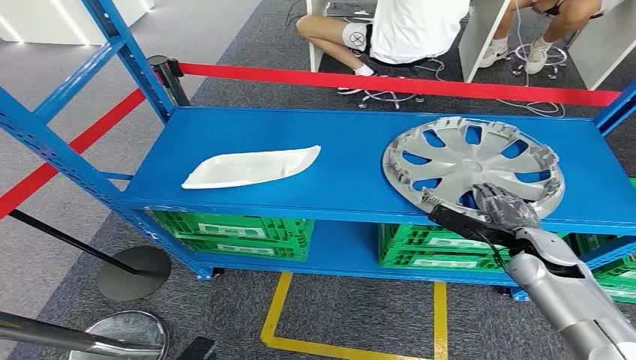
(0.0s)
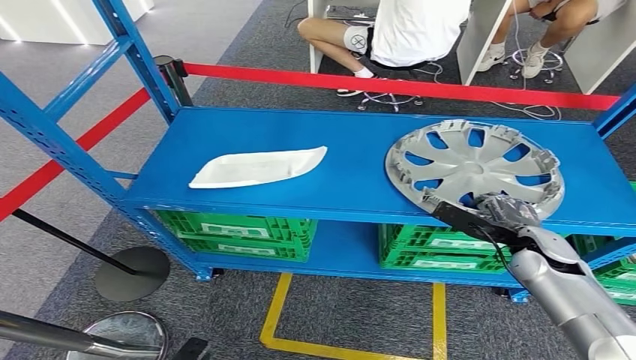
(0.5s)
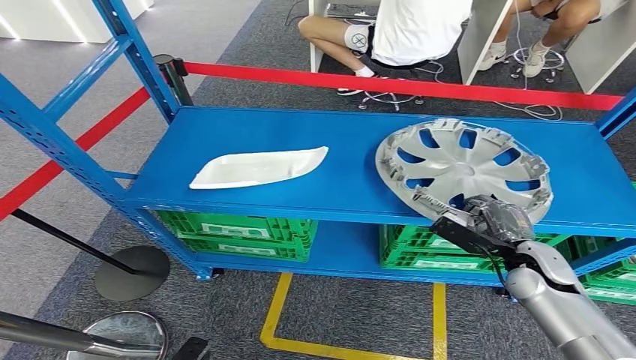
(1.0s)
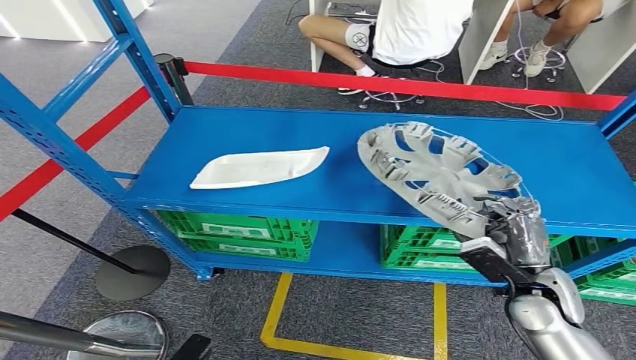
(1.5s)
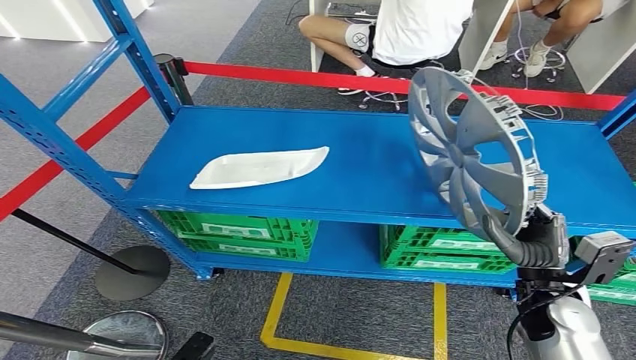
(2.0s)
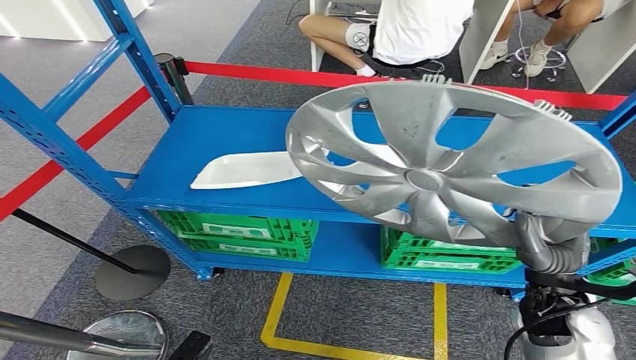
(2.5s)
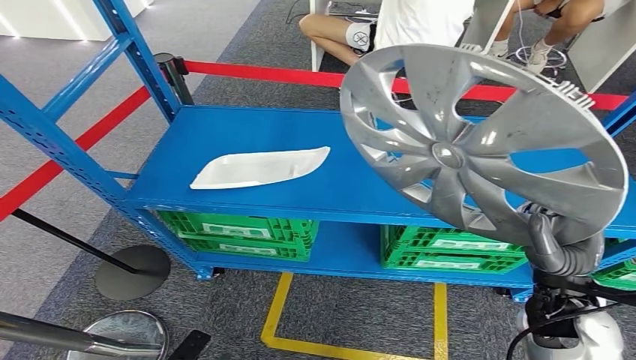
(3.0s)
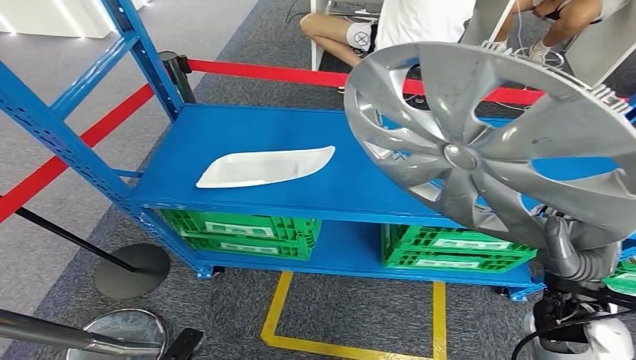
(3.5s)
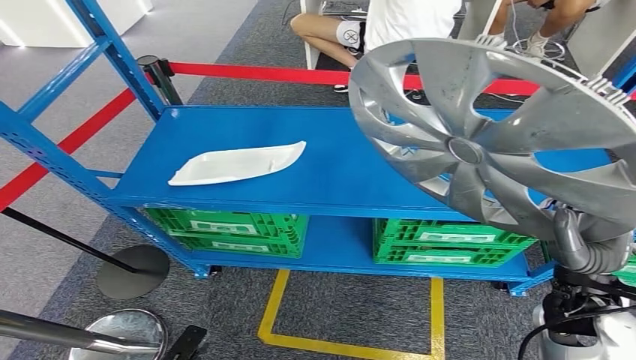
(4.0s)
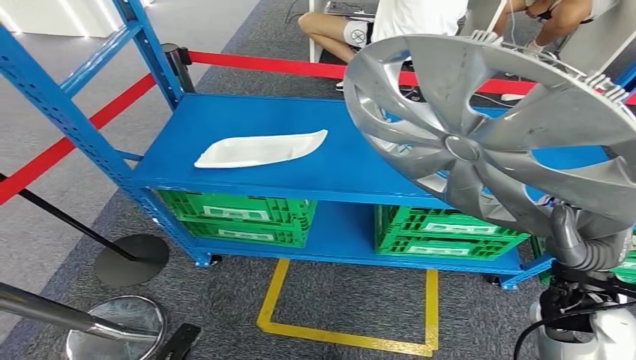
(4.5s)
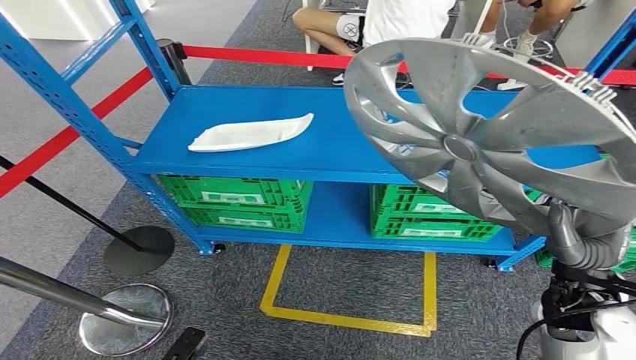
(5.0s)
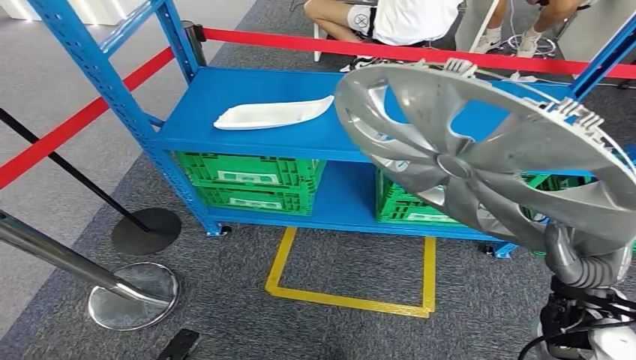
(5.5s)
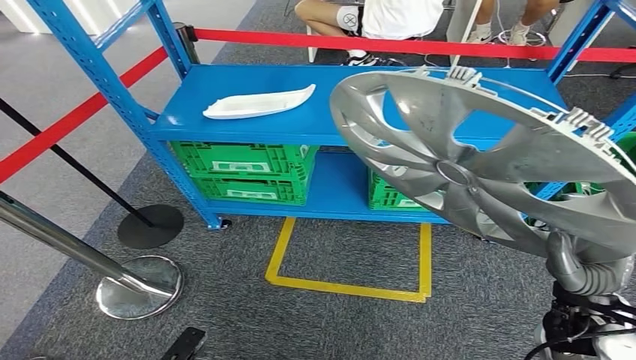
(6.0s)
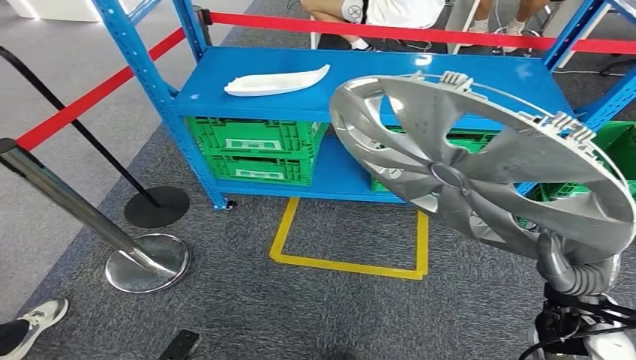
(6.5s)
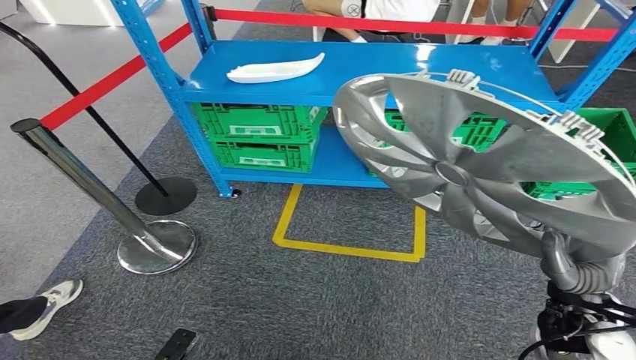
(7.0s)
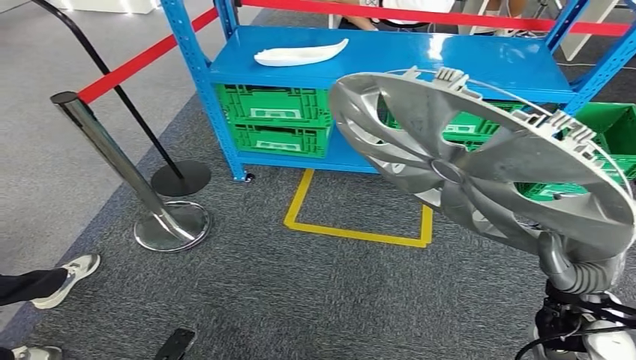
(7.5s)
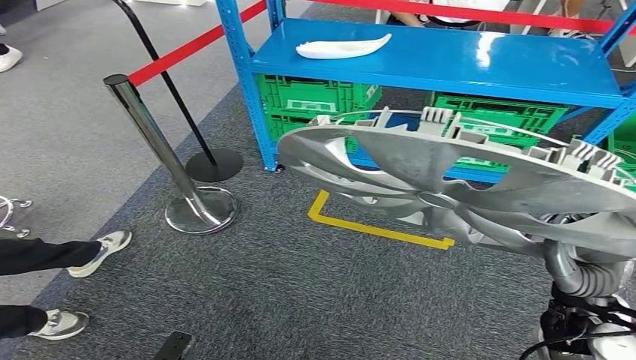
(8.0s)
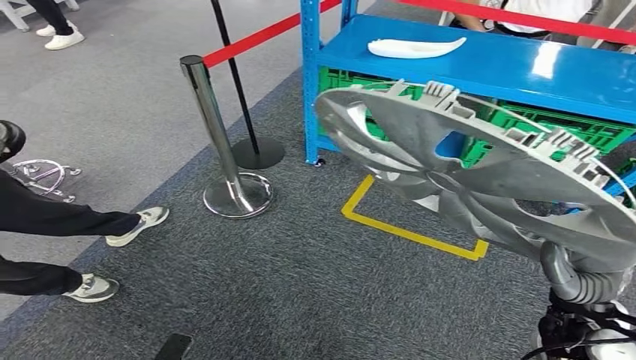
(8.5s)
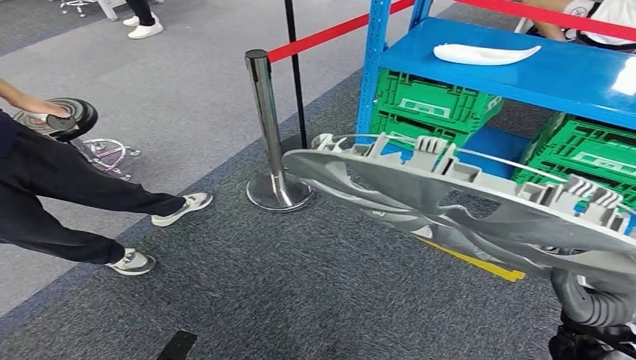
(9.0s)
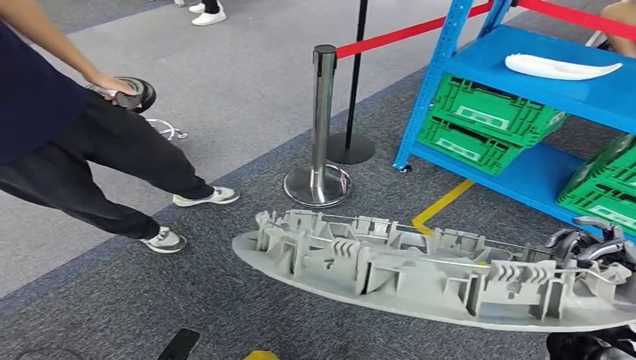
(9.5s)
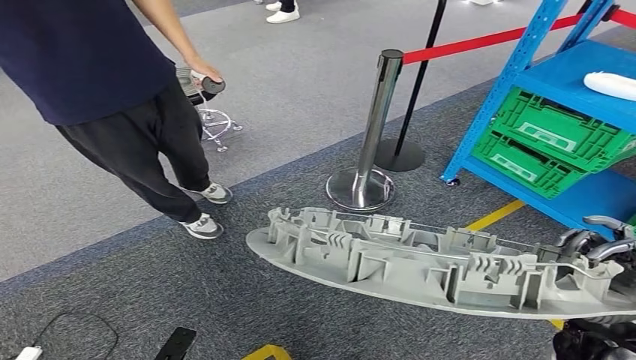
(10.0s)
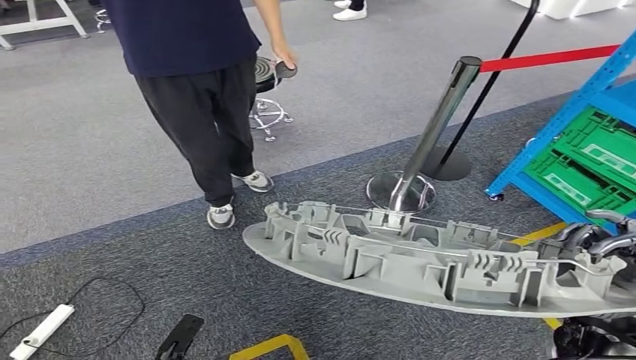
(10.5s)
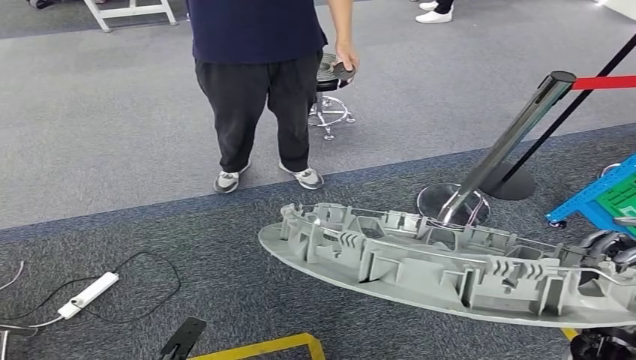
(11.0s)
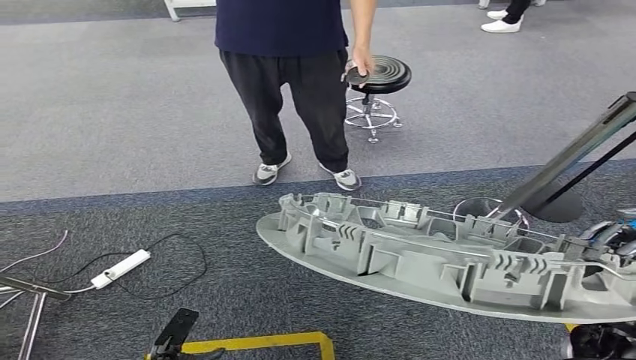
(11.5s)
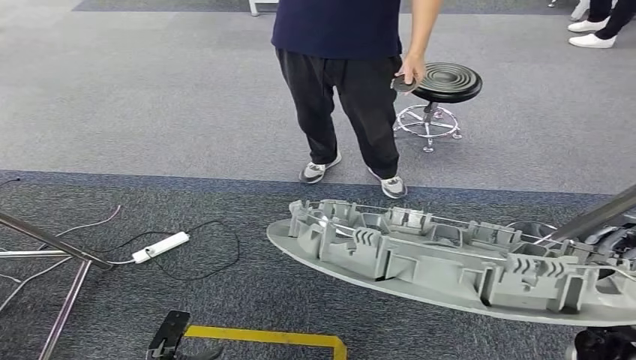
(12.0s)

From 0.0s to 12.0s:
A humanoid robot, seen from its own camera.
Step, from 0.0s to 4.0s: Take small components from the rack.

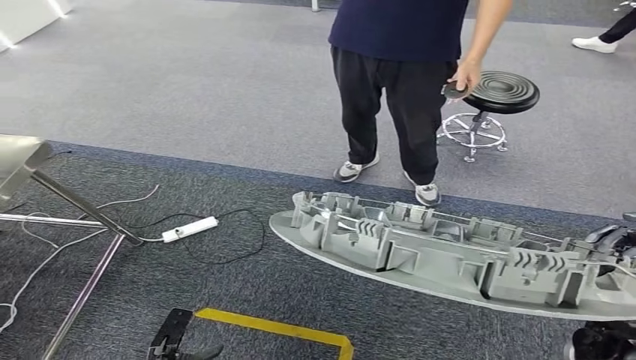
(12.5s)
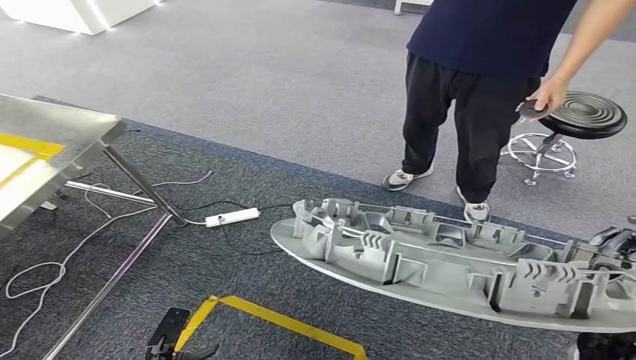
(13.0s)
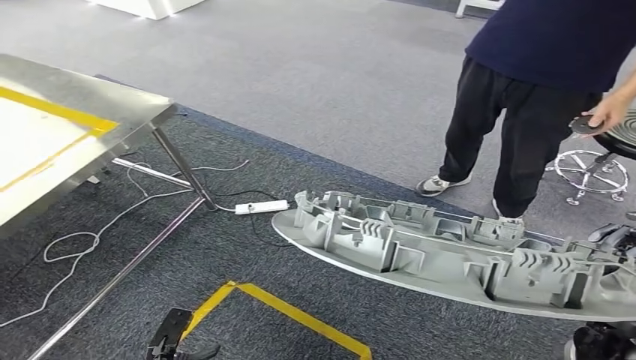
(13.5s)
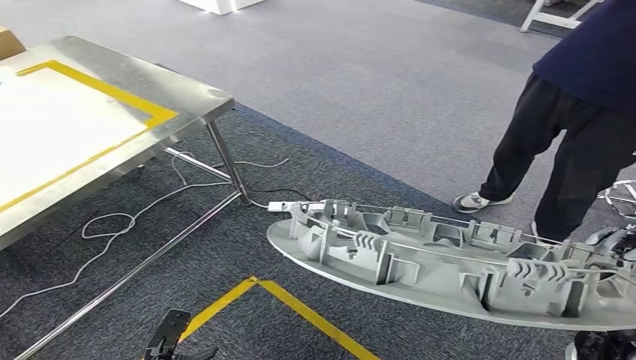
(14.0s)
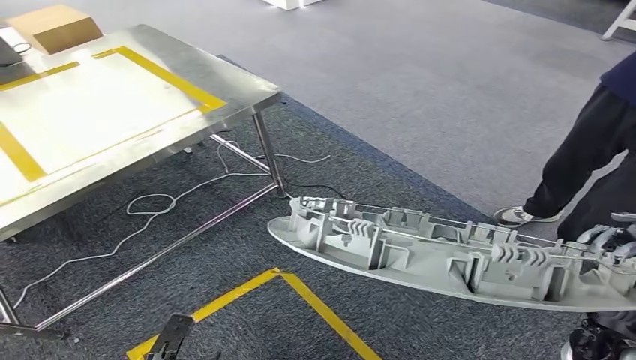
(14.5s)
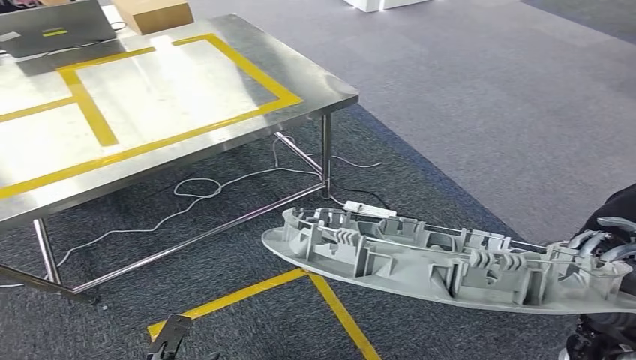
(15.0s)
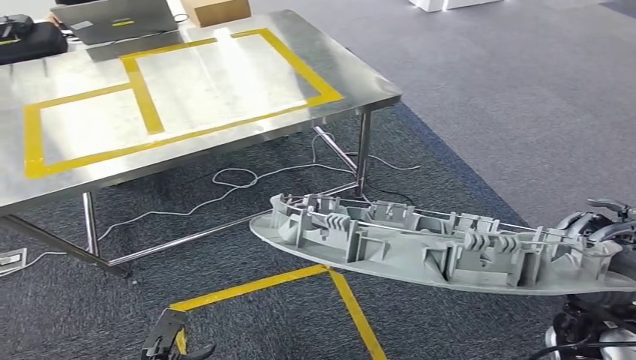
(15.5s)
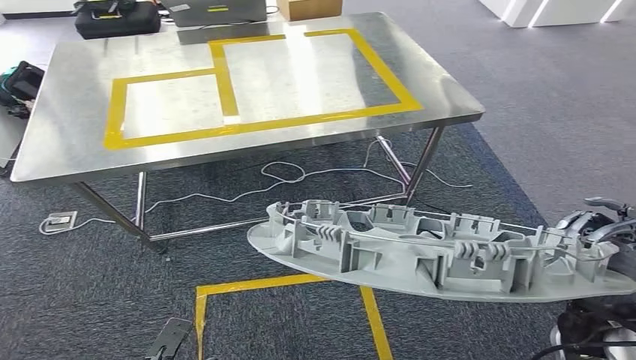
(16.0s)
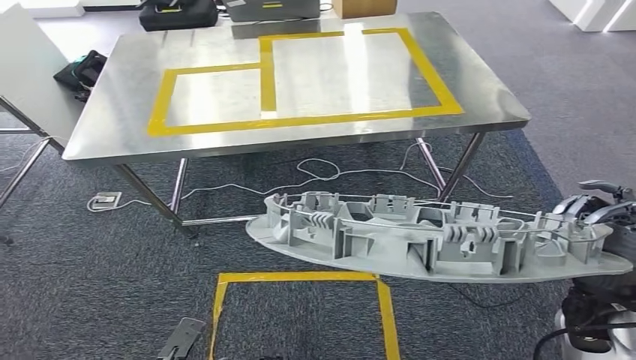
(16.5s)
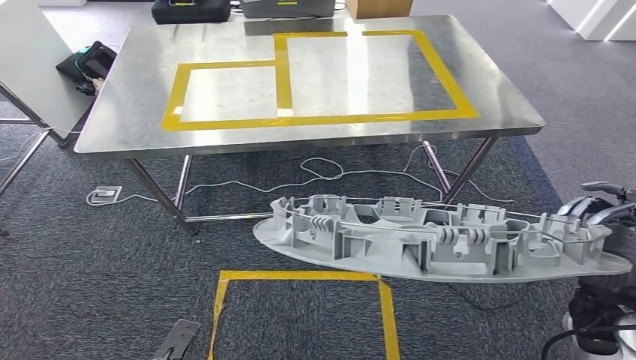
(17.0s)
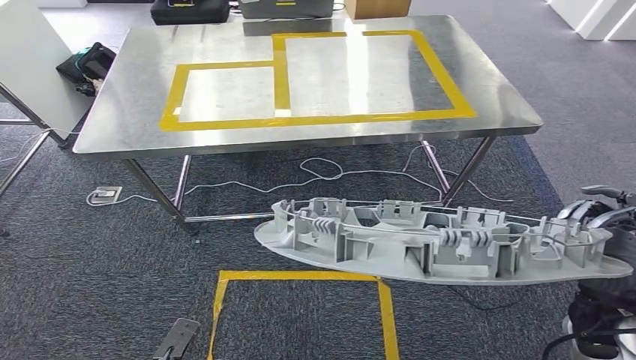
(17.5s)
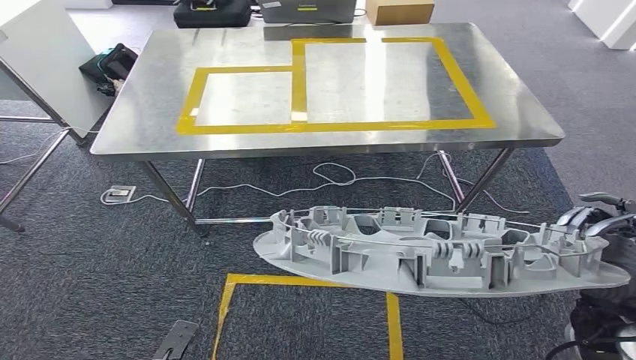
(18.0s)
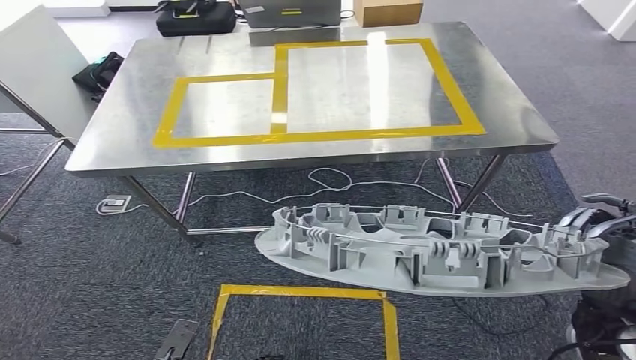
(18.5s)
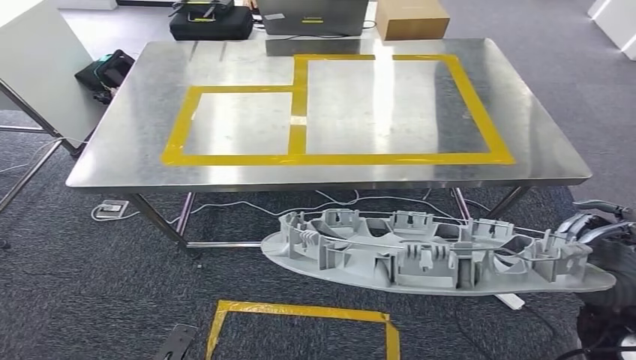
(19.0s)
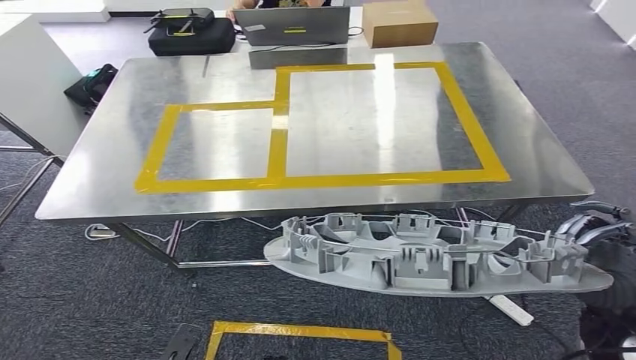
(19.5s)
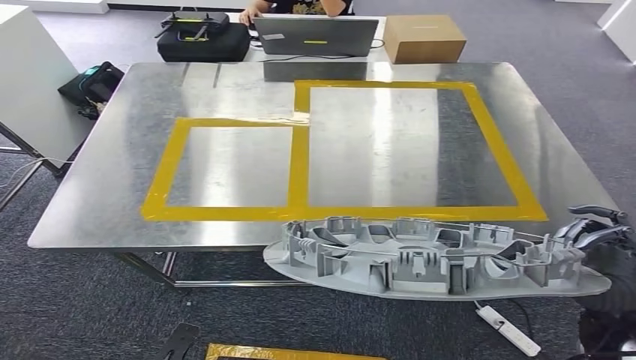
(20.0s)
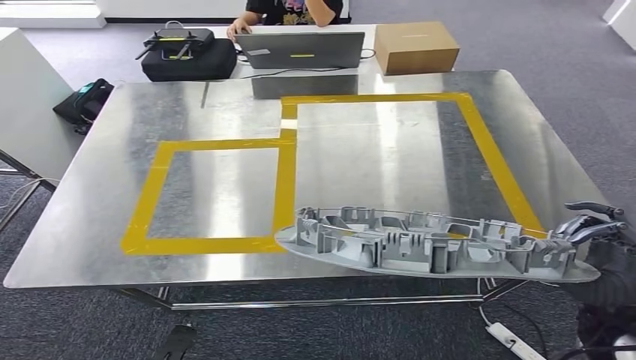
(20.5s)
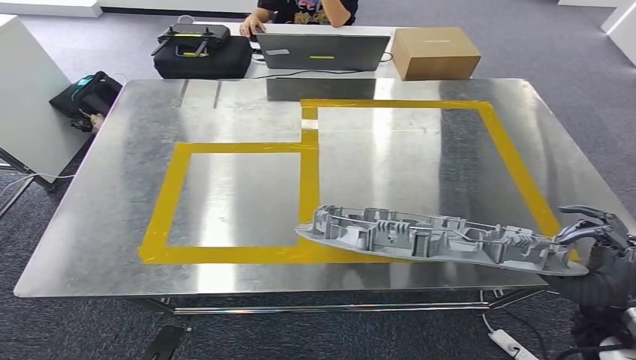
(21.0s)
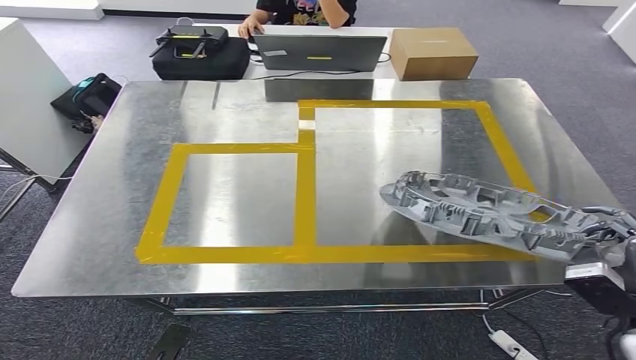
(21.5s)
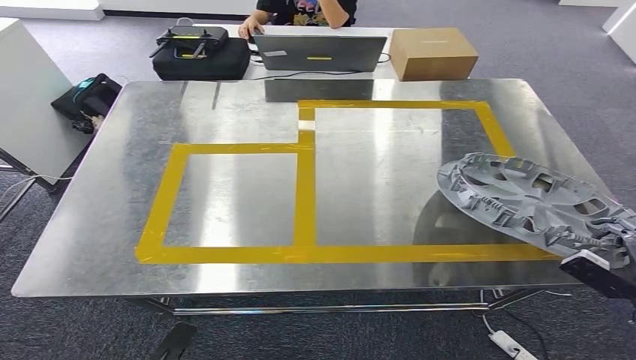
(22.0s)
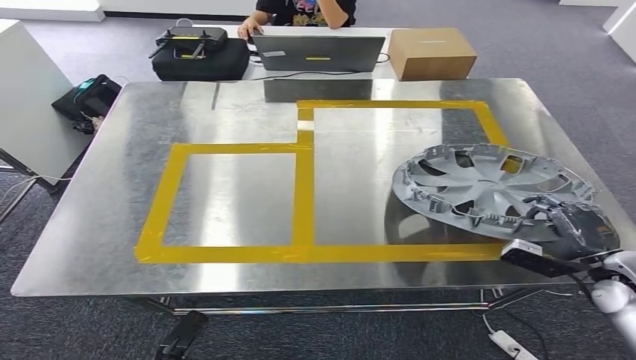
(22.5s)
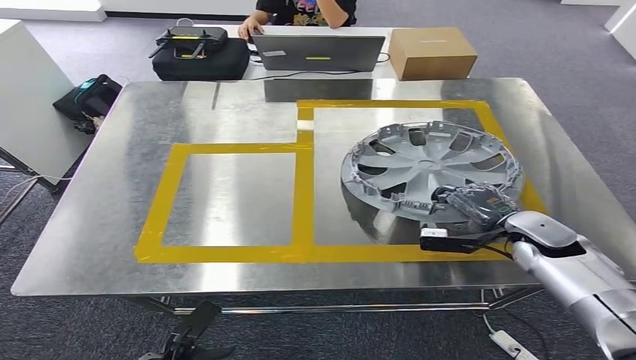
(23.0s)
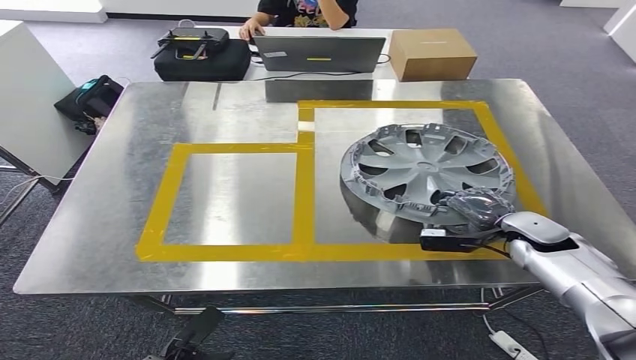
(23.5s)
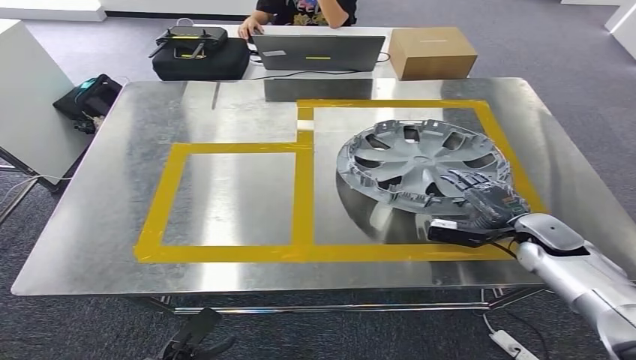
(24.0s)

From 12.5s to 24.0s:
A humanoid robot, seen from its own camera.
Step, from 12.5s to 17.5s: Move the small parts to the workbench.
From 22.0s to 24.0s: The right hand heads forward and to the left, covering roughly 20 cm.
